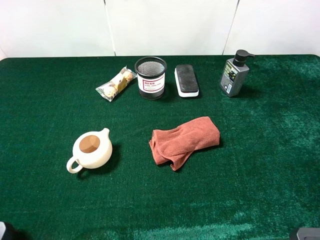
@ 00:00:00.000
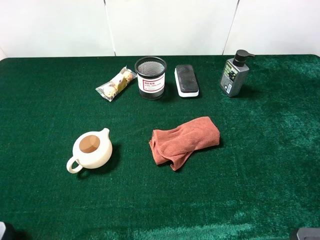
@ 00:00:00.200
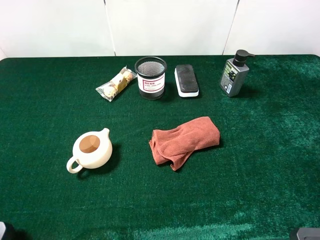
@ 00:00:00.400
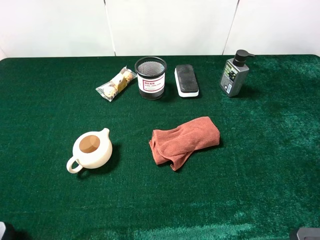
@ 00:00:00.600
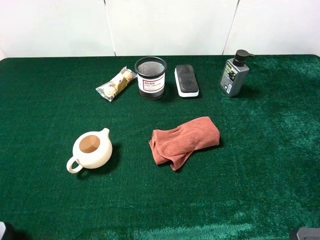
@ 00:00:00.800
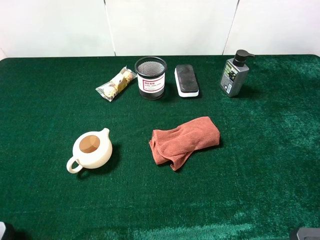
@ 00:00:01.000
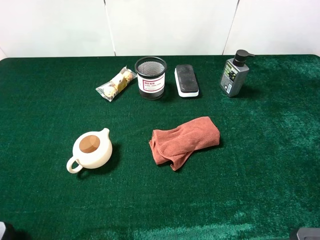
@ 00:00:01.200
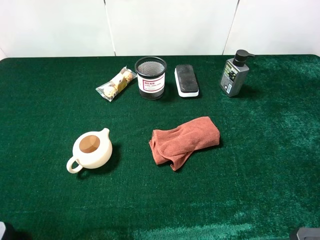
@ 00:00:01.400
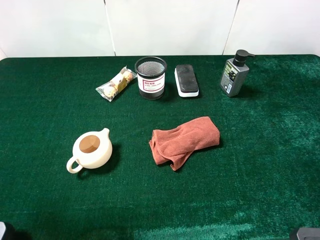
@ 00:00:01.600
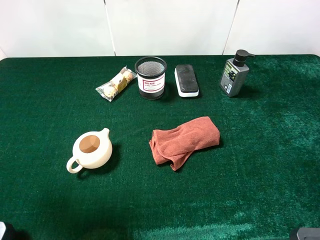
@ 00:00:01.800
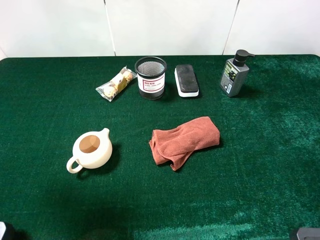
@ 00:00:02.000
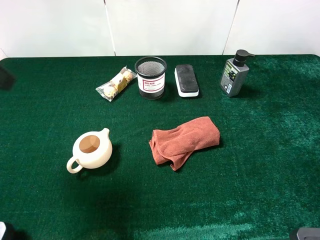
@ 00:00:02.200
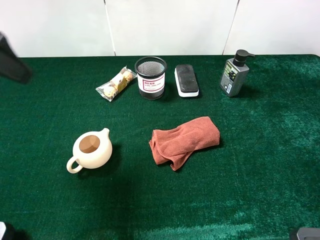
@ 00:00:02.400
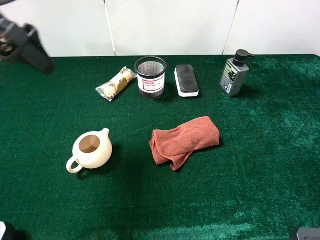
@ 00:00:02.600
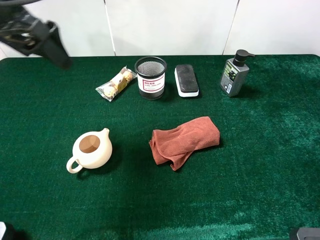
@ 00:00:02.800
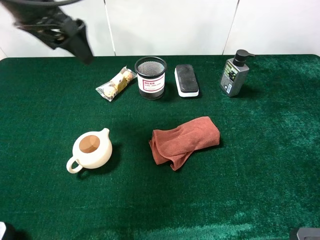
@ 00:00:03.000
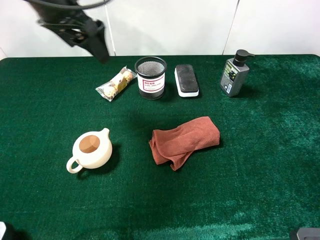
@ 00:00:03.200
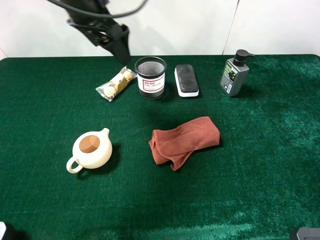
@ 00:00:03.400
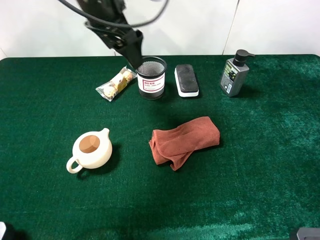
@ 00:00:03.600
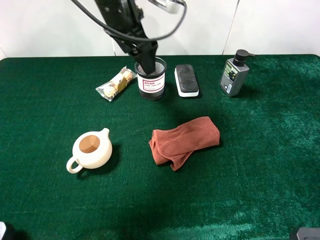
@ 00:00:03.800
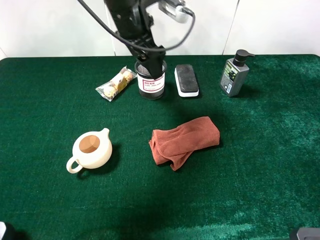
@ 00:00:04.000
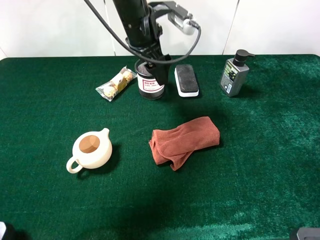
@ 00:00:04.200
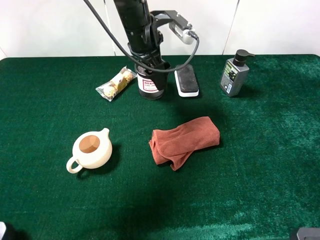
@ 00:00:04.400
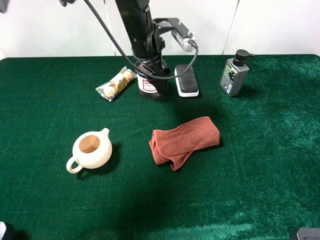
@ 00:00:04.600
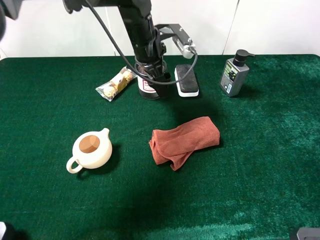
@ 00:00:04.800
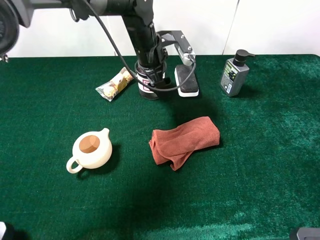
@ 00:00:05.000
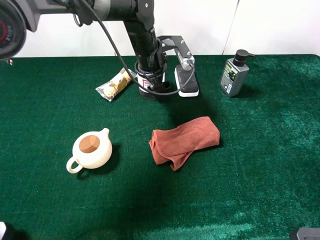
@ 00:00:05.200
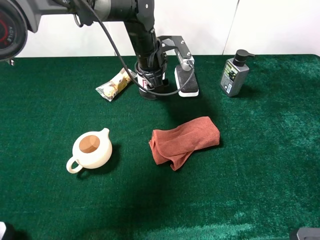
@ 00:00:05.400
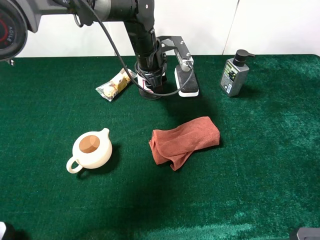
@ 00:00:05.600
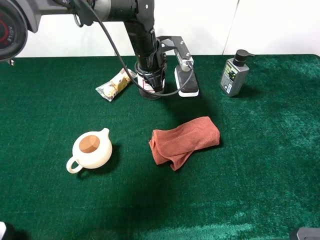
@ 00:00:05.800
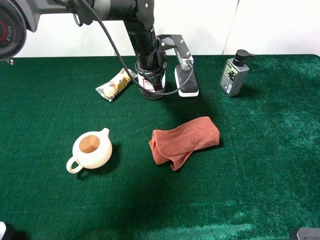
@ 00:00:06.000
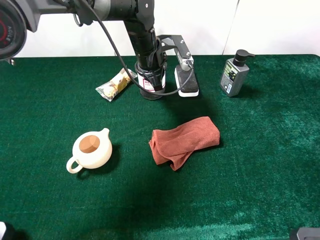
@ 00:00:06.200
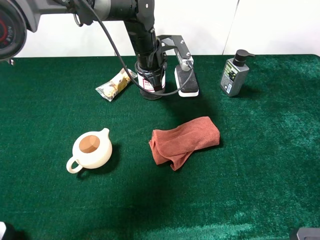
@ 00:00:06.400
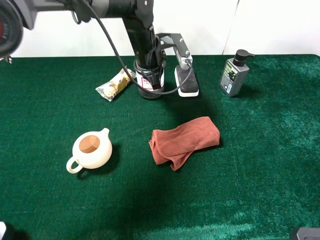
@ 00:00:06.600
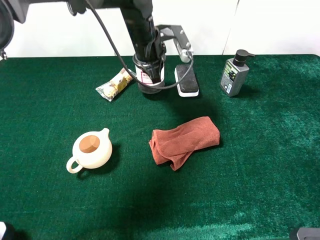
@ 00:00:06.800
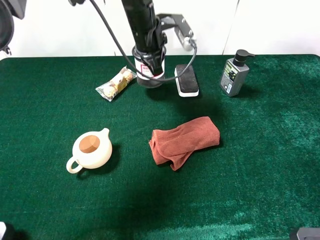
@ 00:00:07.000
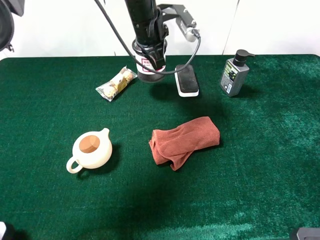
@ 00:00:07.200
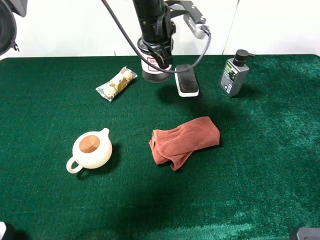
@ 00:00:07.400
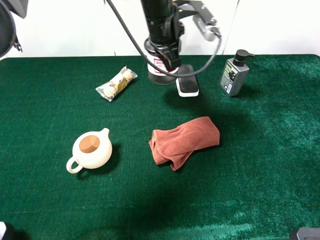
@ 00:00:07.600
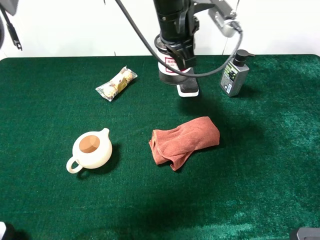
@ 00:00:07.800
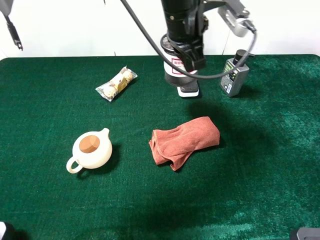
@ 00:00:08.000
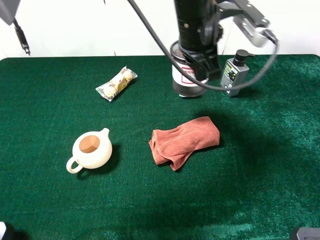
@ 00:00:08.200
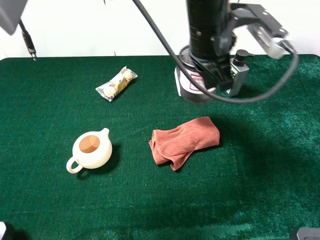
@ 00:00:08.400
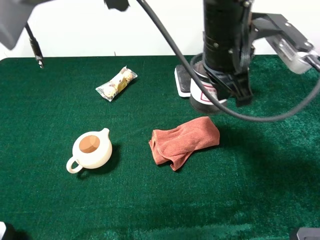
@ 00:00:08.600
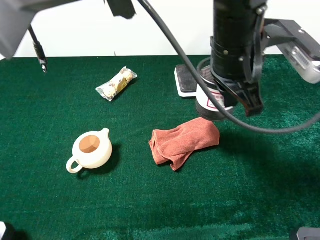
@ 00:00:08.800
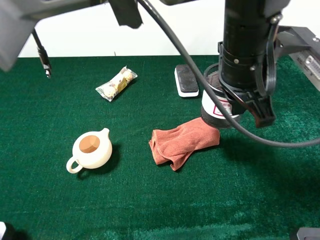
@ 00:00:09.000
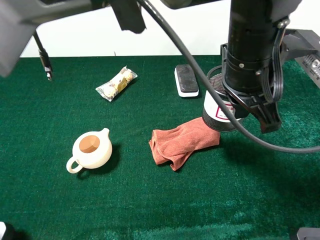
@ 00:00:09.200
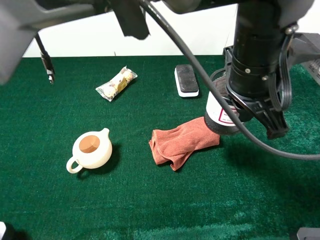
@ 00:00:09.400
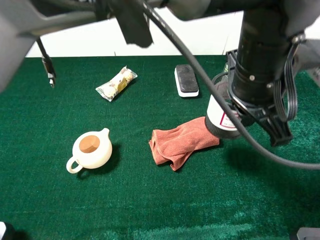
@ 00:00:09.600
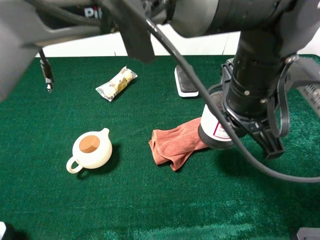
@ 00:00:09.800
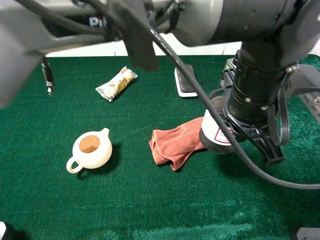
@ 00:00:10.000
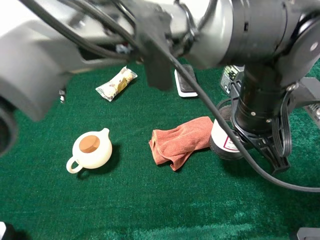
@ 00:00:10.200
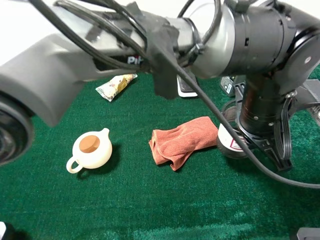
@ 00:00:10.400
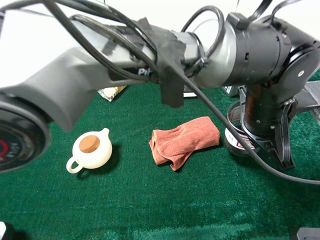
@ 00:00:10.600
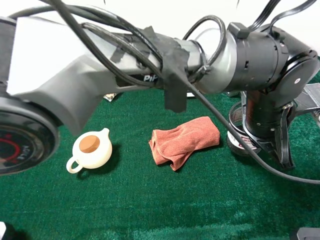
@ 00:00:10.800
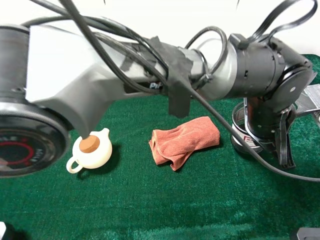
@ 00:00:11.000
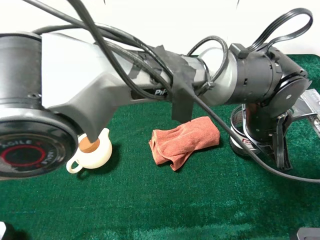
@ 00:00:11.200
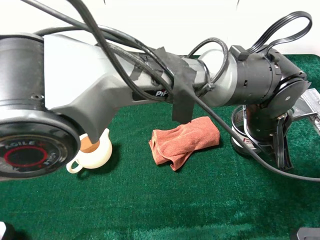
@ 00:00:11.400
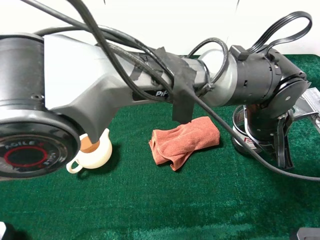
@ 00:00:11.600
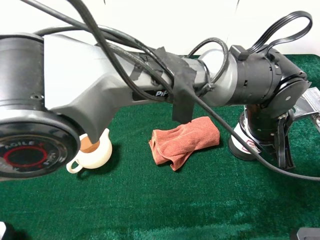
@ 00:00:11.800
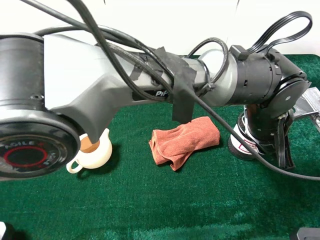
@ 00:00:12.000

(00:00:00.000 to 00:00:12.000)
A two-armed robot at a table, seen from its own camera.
Task of the whole recording: the gripper move the object.
Step, 00:00:00.000 - 00:00:06.400: Grasp the pen container with the left gripper.
00:00:00.000 - 00:00:01.600: The left gripper travels forward by some 10 cm.
00:00:01.600 - 00:00:03.000: The left gripper is displaced forward and to the right by roughly 25 cm.
00:00:03.000 - 00:00:04.400: The left gripper shifts some 20 cm to the right, downward and forward.
00:00:04.400 - 00:00:06.000: The left gripper moves downward, approximately 5 cm, and closes its fingers.
00:00:06.000 - 00:00:07.600: The left gripper moves upward, some 10 cm.
00:00:07.600 - 00:00:09.000: The left gripper shifts roughly 20 cm backward and to the right.
00:00:09.000 - 00:00:10.400: The left gripper shifts about 5 cm downward.
00:00:10.400 - 00:00:12.000: The left gripper opens its fingers.

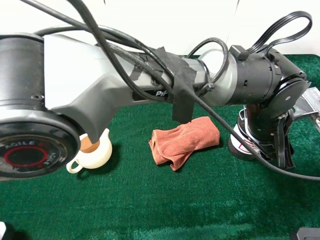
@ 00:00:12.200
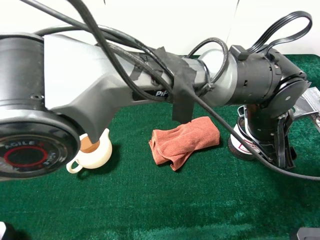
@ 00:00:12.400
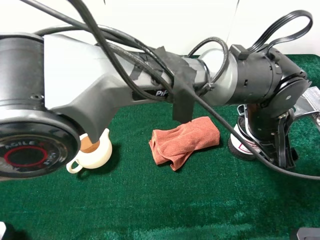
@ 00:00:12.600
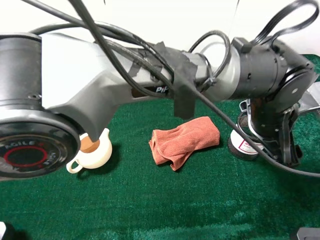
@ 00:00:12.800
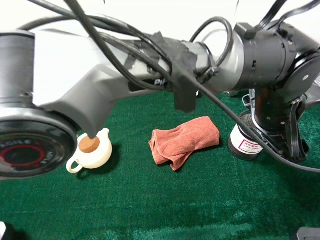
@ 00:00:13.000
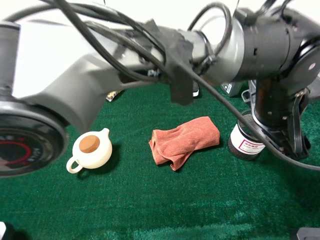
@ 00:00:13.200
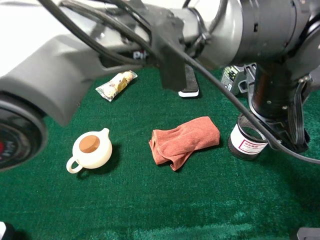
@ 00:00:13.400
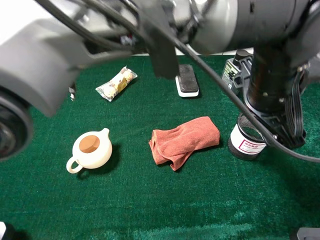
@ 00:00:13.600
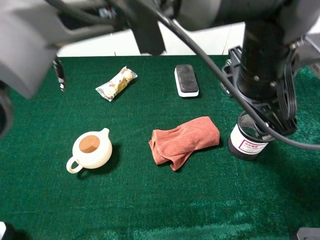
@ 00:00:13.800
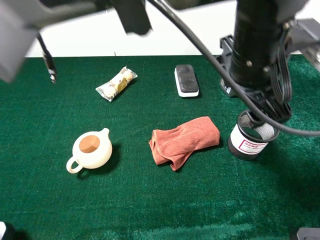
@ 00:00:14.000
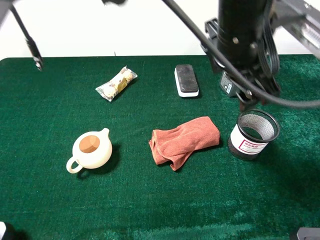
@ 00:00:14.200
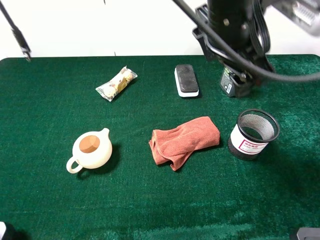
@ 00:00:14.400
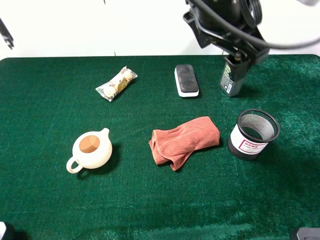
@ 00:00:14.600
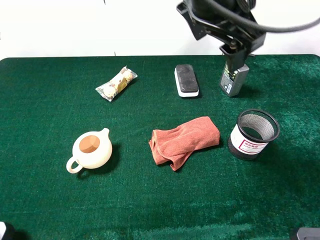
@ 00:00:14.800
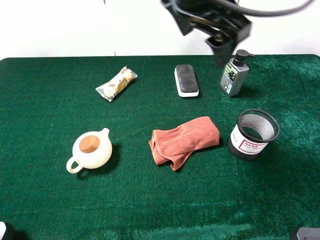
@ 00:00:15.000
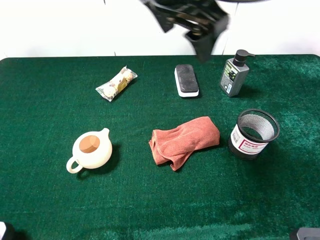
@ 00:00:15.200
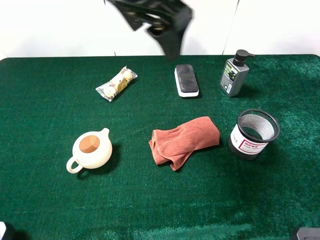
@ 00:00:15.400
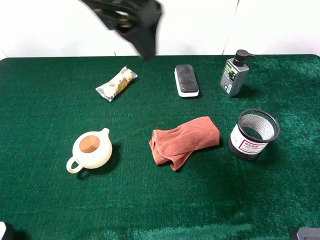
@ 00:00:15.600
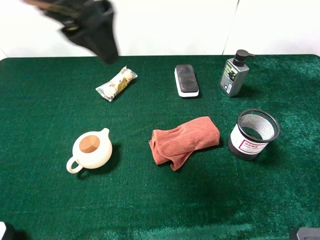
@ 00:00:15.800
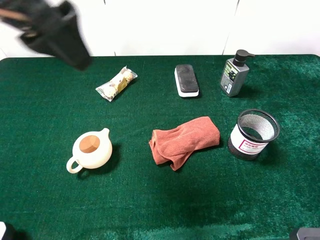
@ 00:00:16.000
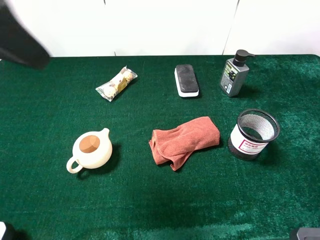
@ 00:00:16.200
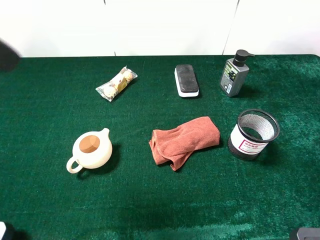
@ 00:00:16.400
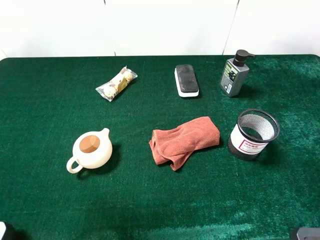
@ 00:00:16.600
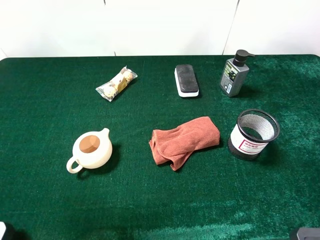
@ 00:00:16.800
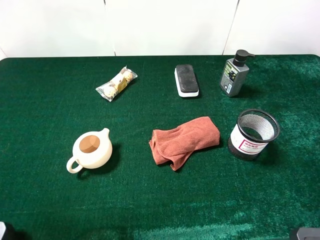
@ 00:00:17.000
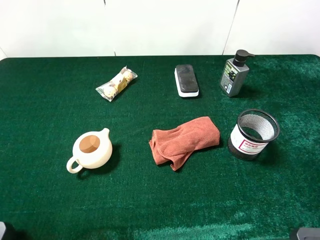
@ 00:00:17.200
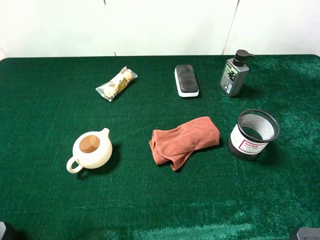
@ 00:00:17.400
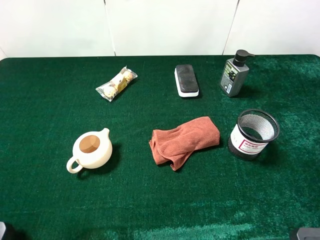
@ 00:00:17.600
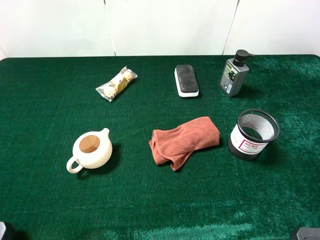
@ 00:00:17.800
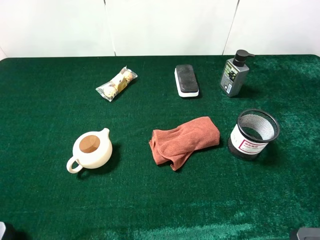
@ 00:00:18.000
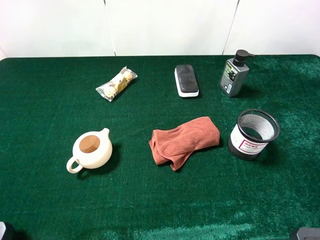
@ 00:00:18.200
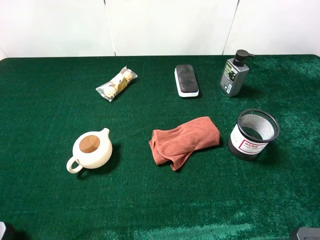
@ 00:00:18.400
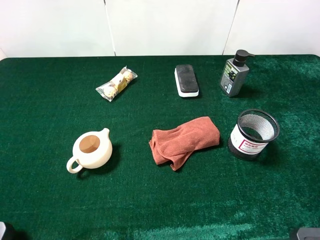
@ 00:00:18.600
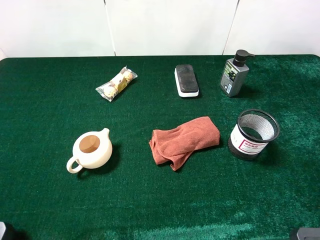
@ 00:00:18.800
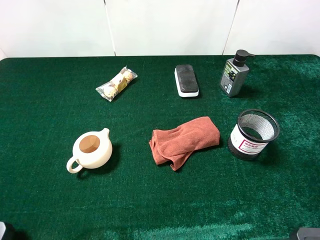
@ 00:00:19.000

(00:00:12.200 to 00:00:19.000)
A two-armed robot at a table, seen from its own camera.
Task of the whole recording: the gripper move the object.
00:00:12.200 - 00:00:13.600: The left gripper moves upward, approximately 10 cm.
00:00:13.600 - 00:00:15.000: The left gripper is displaced to the left, upward and forward by some 20 cm.
00:00:15.000 - 00:00:16.200: The left gripper is displaced to the left and backward by about 25 cm.
00:00:16.200 - 00:00:17.600: The left gripper shifts roughly 20 cm to the left, backward and downward.
